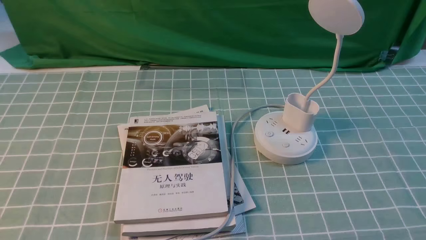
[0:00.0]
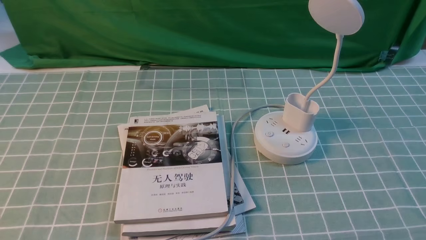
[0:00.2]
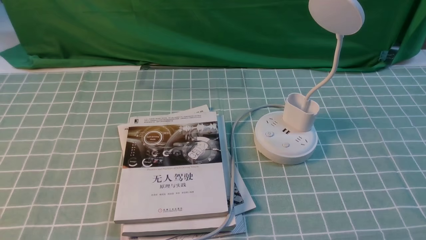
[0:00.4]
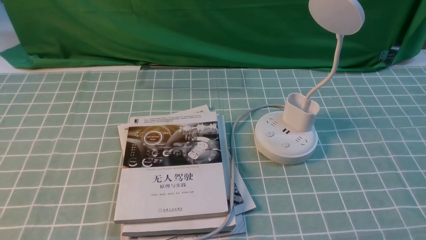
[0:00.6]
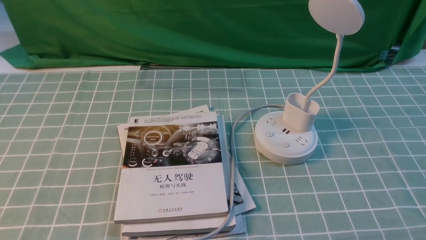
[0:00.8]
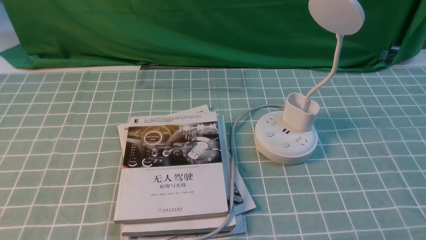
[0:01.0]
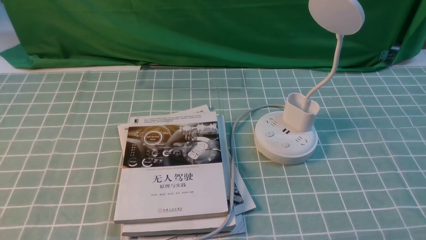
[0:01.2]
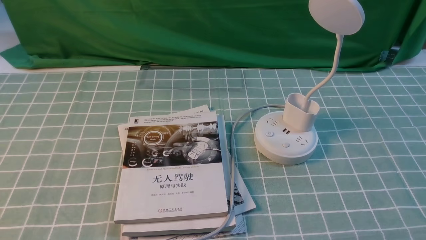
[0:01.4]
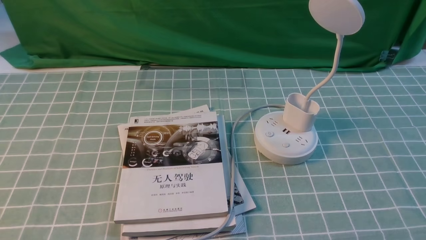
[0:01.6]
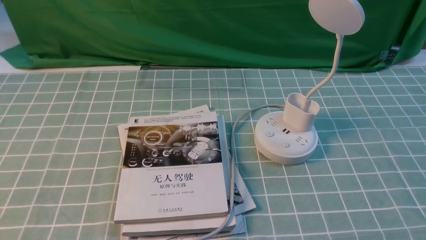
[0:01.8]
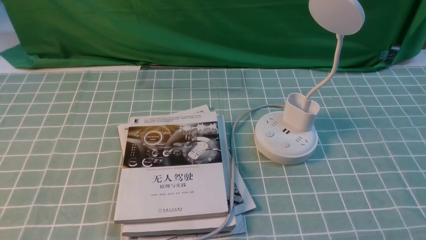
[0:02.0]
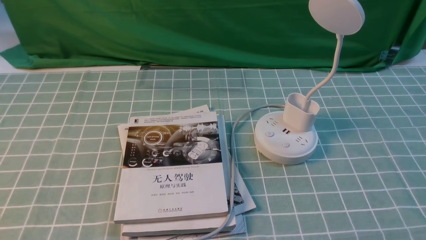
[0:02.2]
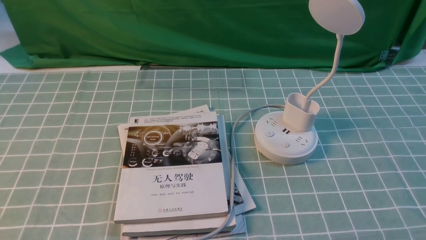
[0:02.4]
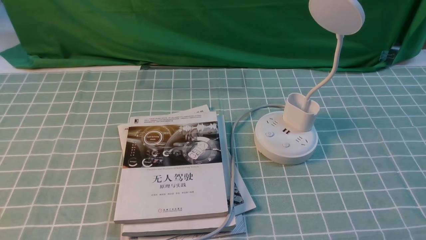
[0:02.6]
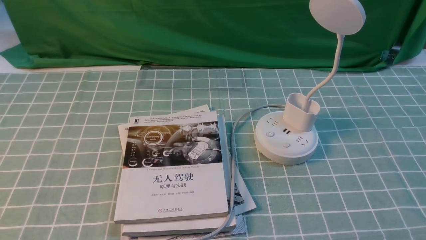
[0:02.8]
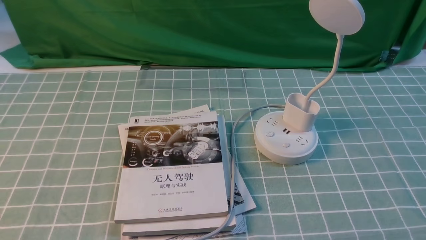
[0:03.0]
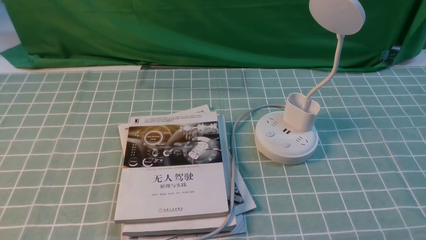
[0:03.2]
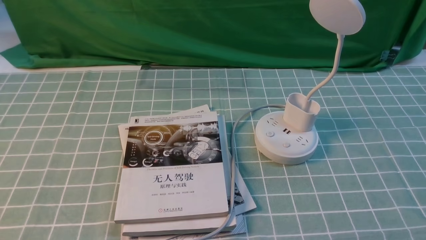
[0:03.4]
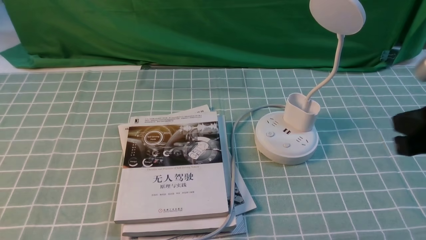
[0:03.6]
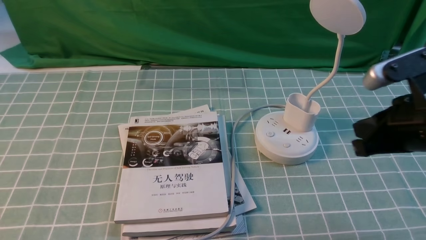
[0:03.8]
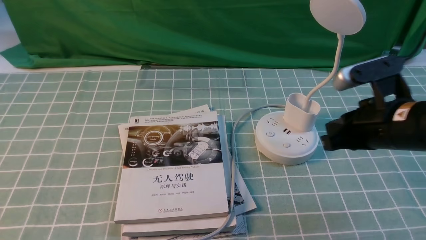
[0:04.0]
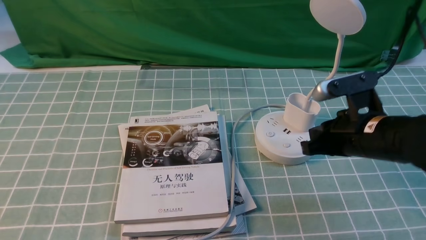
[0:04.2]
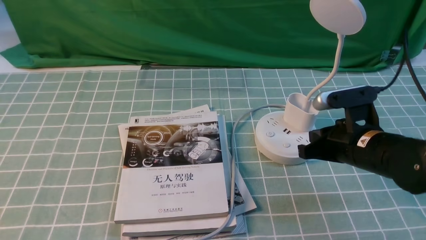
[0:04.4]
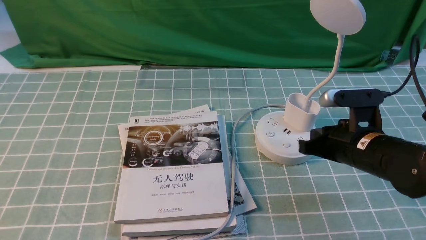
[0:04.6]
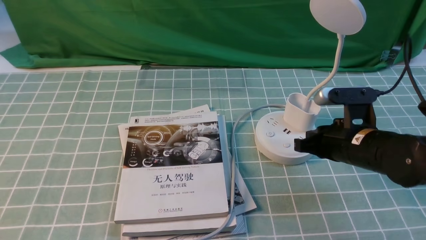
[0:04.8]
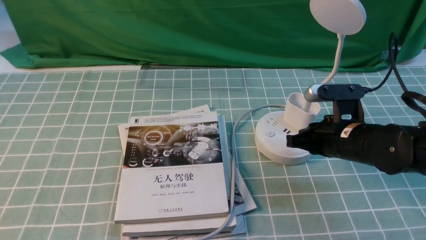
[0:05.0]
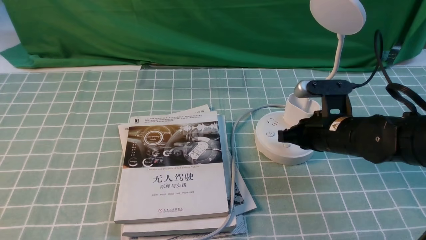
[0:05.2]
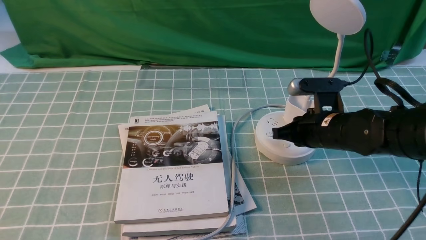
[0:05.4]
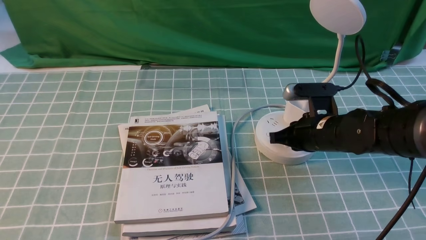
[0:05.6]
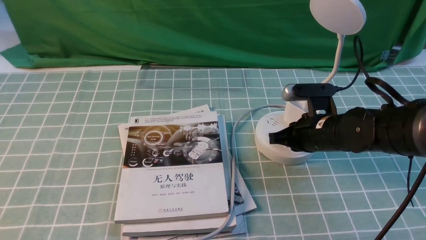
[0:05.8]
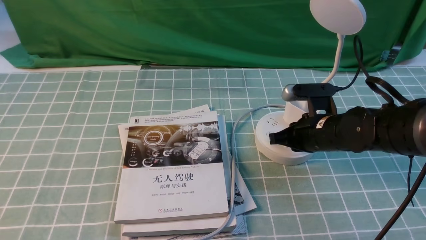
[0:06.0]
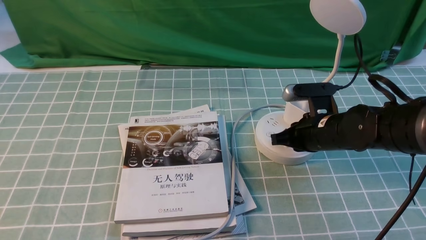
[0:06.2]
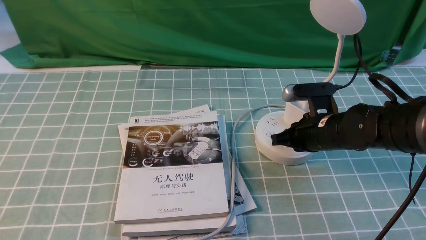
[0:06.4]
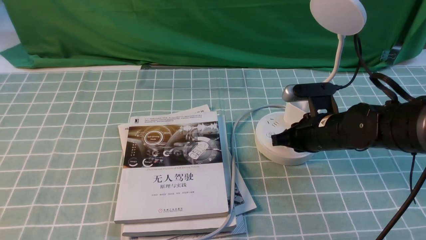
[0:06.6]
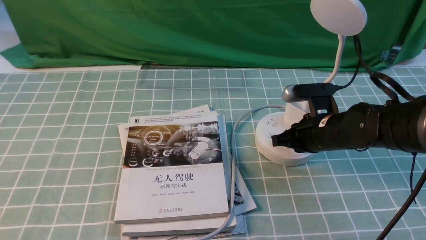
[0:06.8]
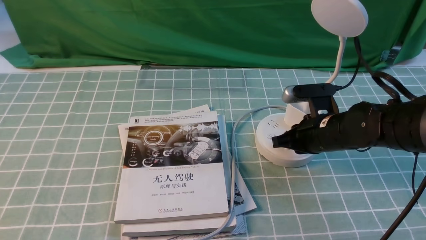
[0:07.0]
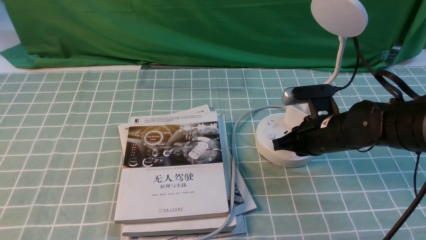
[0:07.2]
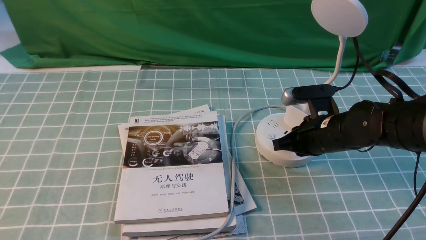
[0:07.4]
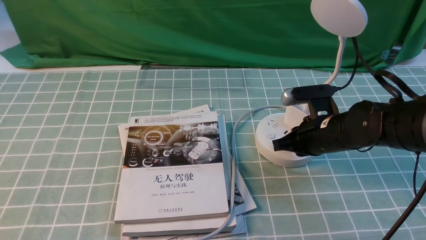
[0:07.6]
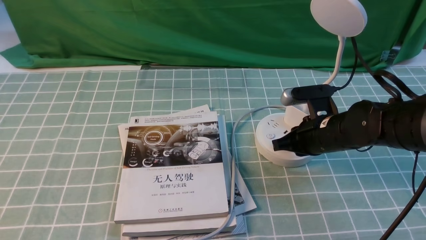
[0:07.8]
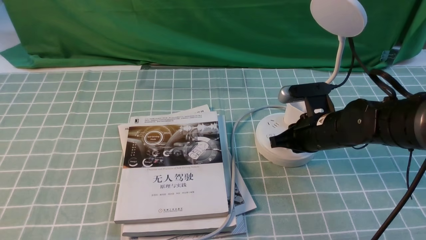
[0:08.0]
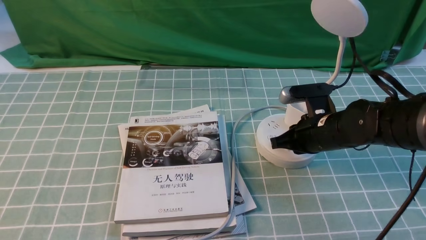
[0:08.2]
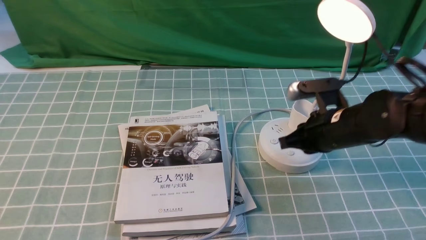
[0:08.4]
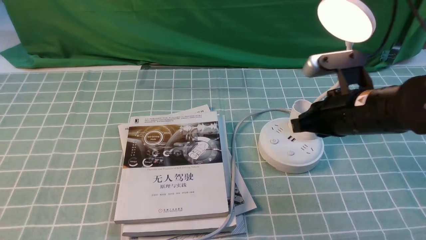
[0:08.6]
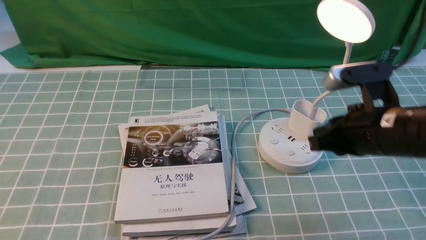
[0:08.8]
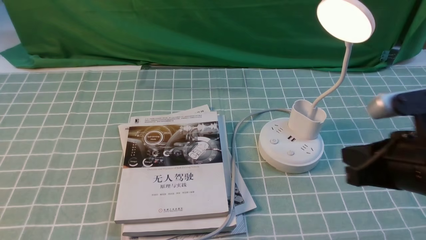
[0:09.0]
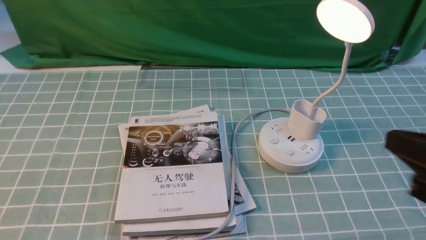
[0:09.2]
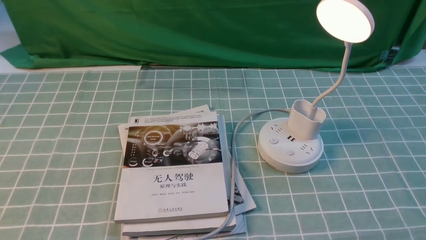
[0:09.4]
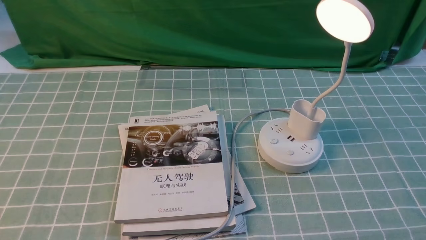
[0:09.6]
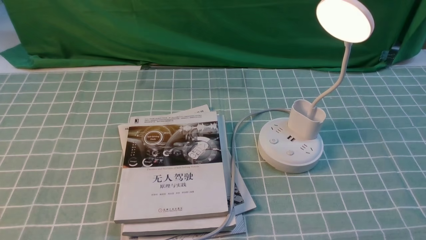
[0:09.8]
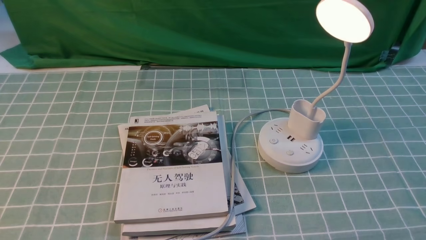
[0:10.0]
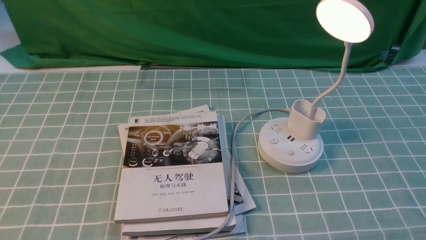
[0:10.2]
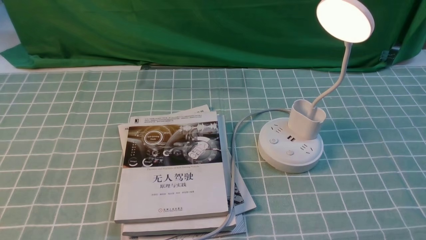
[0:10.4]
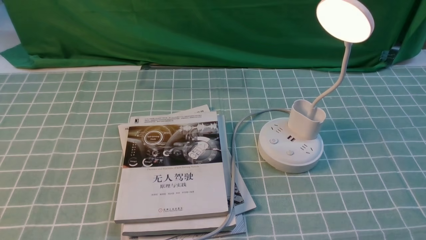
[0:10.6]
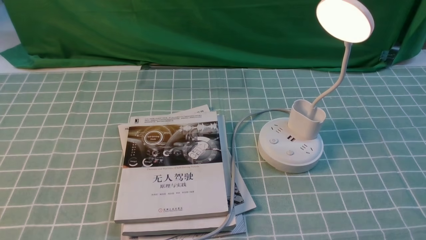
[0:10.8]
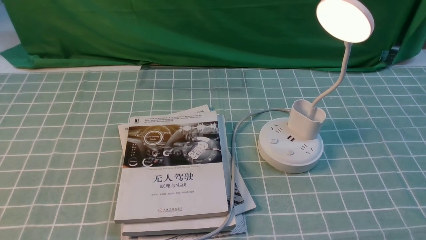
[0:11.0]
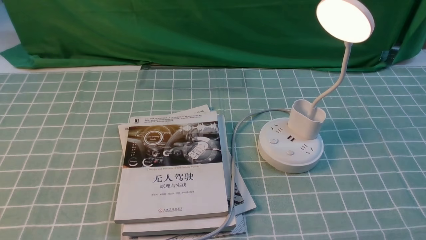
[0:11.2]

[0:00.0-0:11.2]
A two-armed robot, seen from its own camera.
Step, 0:00.0 to 0:08.4: use the right arm to press the button switch on the lamp holder.
0:00.0 to 0:01.6: The two grippers keep their place.
0:03.2 to 0:04.8: The right gripper shifts some 25 cm forward, downward and to the left.
0:04.8 to 0:06.4: The right gripper shifts by roughly 5 cm.
0:06.4 to 0:08.0: Both grippers stay put.
0:08.0 to 0:09.6: The right gripper heads backward, upward and to the right, covering approximately 35 cm.

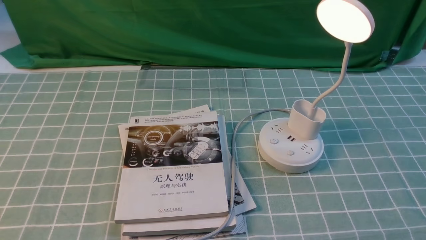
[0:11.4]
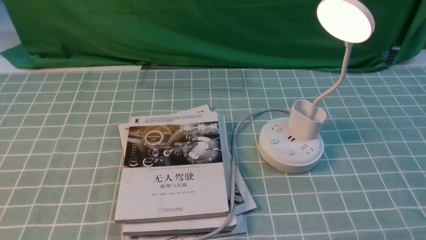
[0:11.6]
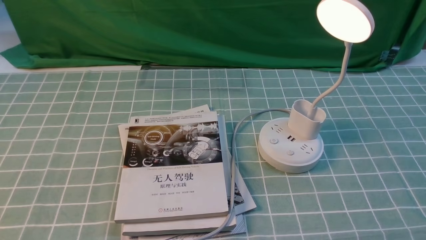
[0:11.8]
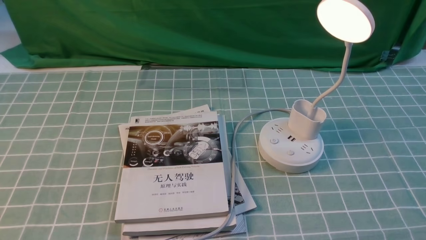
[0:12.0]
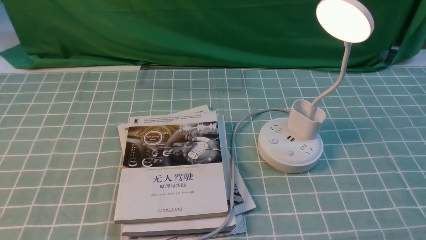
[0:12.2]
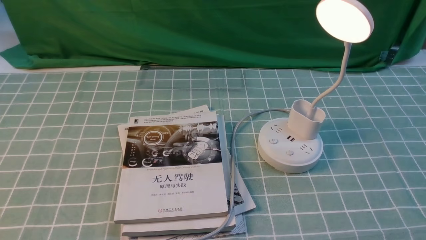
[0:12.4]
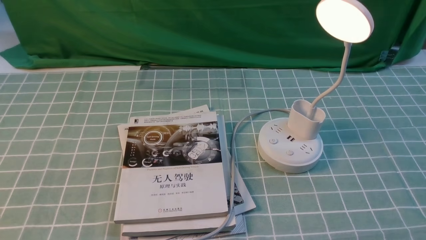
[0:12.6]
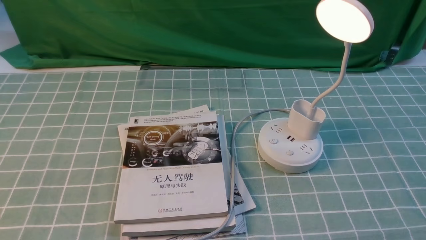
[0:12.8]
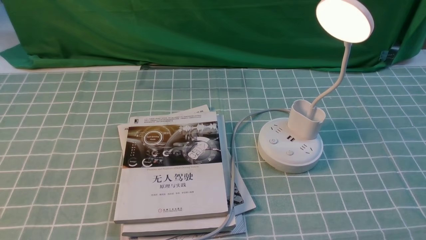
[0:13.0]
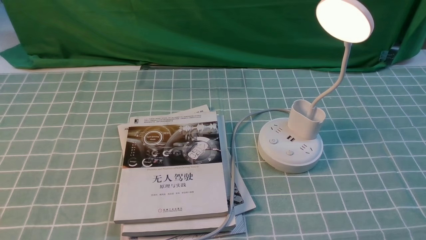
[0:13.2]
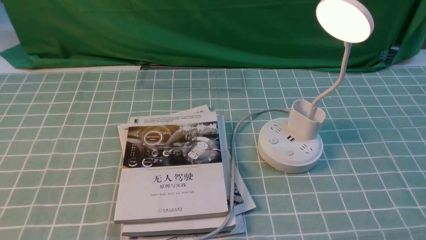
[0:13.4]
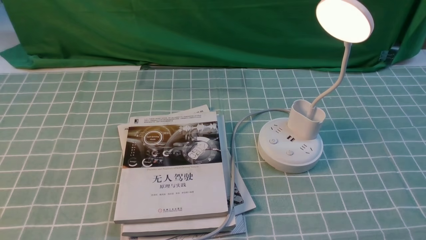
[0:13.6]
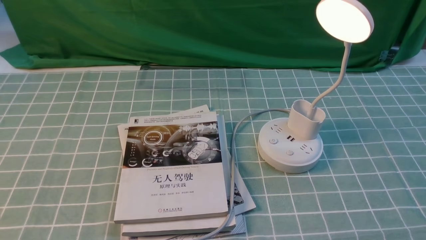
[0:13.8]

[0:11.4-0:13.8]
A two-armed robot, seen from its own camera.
0:11.4 to 0:13.8: Neither gripper changes place.
